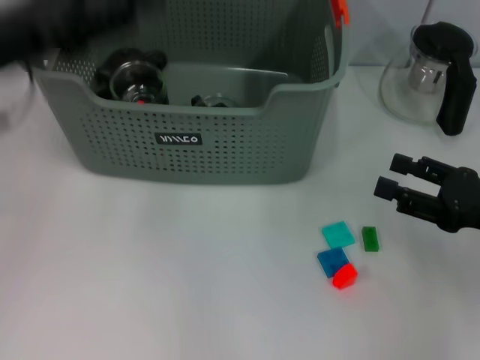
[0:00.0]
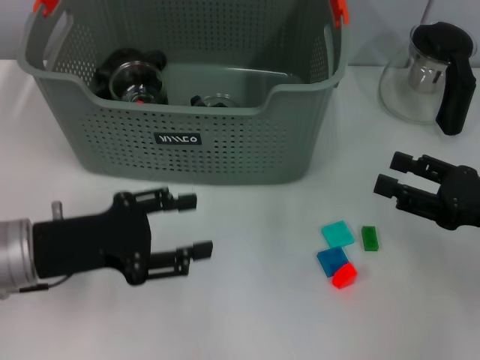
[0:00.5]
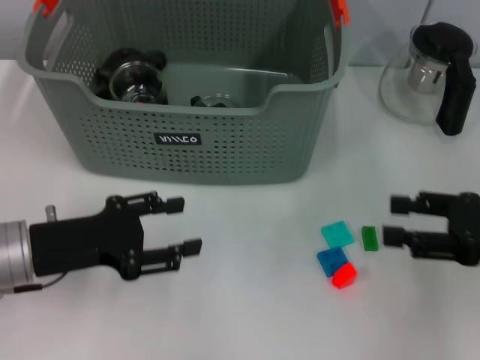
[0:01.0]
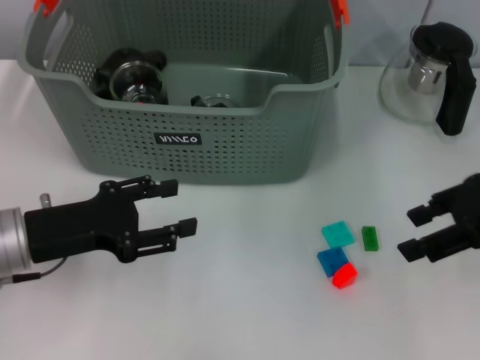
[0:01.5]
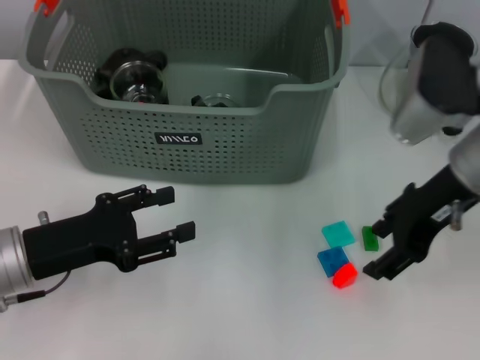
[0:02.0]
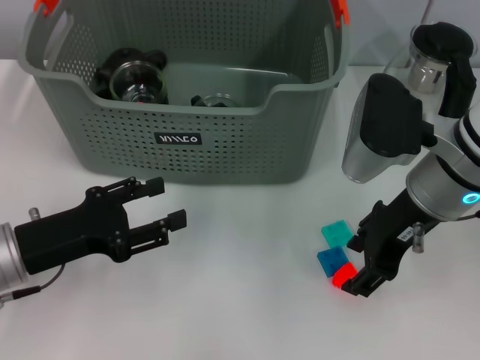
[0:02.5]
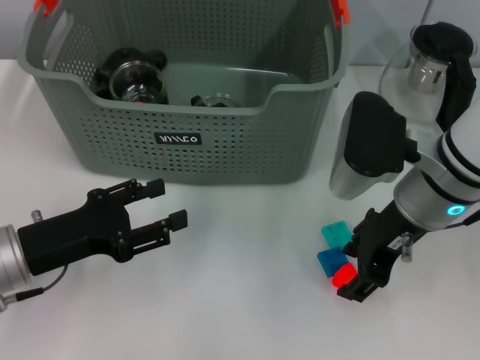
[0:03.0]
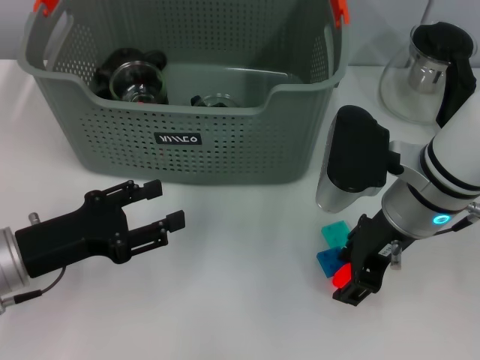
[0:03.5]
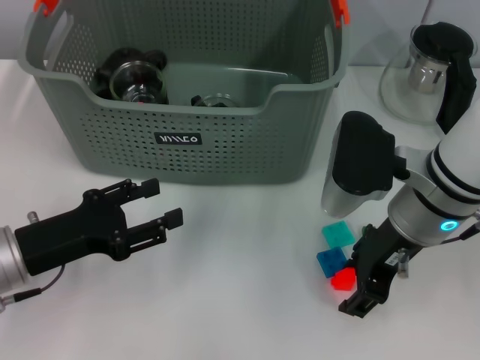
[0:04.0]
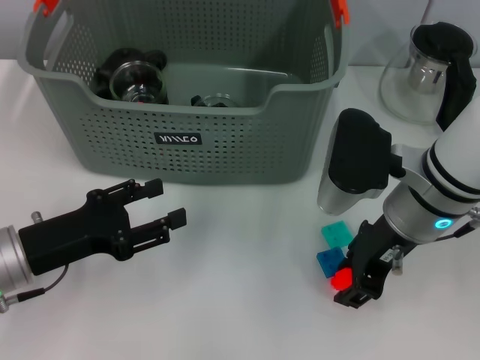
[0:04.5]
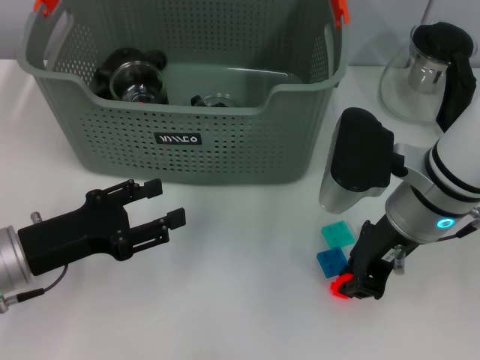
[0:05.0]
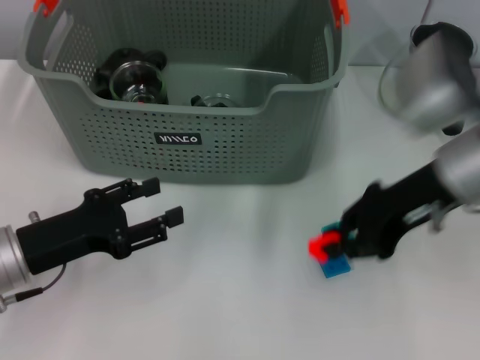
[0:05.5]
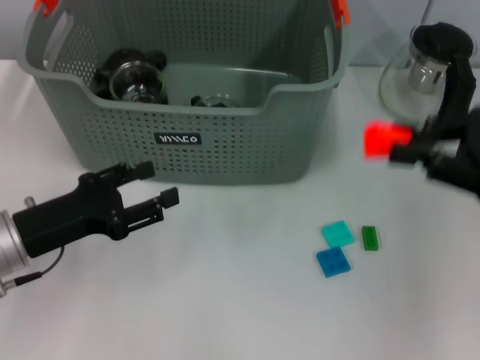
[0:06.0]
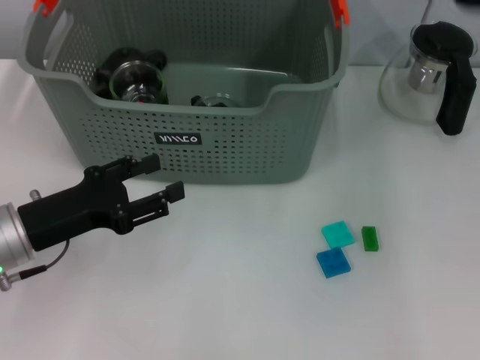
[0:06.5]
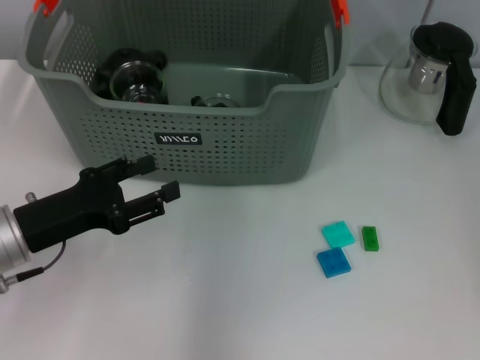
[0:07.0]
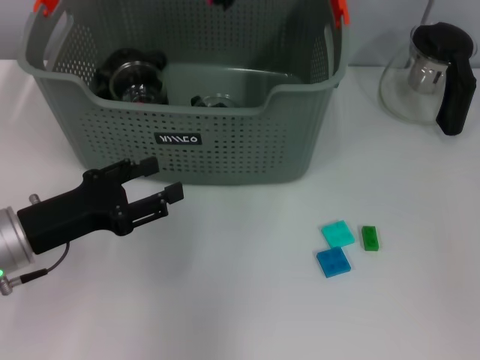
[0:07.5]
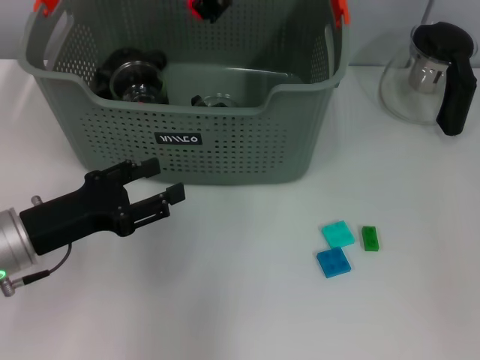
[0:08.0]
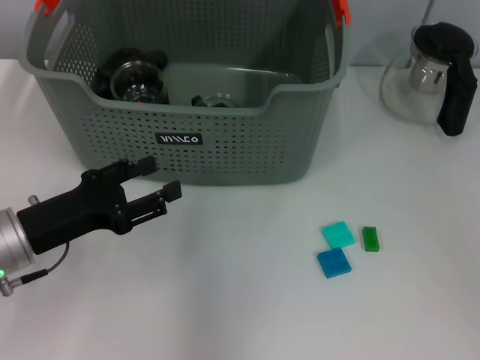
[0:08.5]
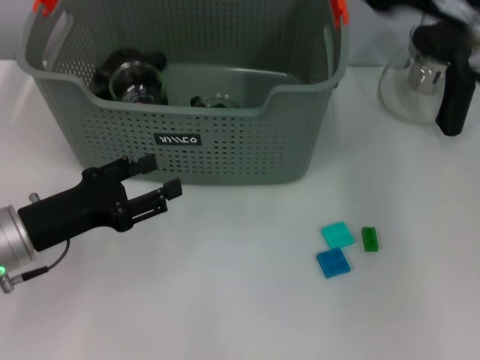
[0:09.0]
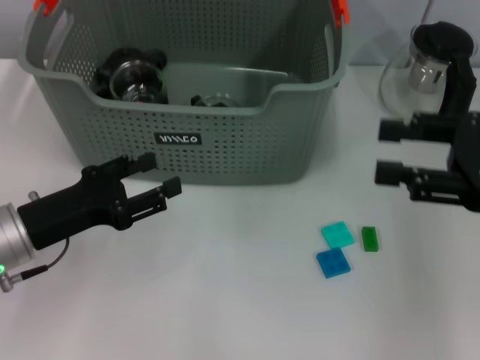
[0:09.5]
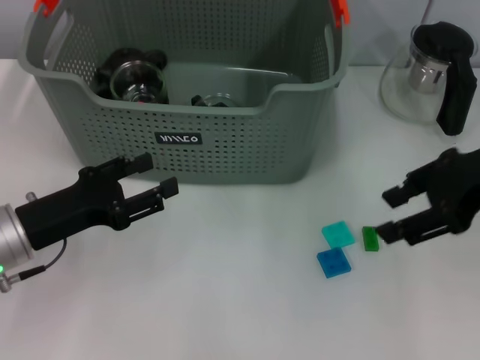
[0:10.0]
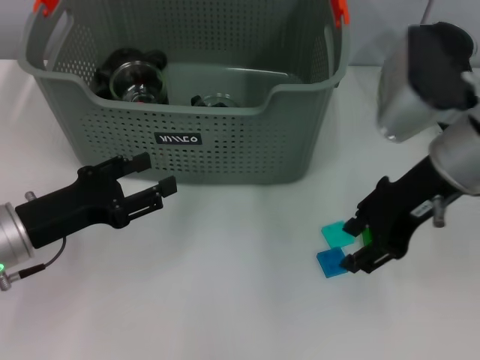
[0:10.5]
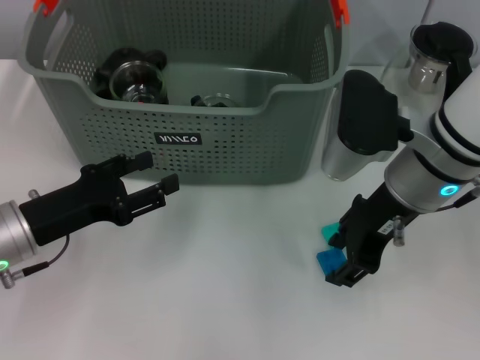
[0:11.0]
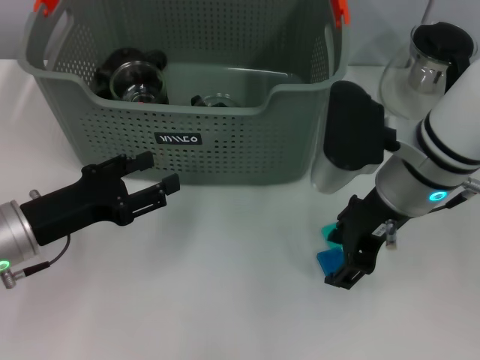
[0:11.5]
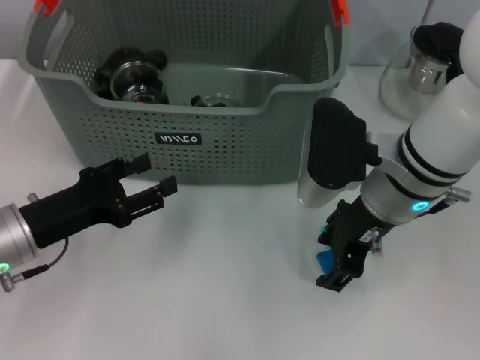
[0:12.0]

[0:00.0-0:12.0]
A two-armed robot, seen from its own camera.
Task of the whole recording: pick up the teacup on the table and place it into the storage bin, pick up the block on the table and place it into the storage bin.
Step, 0.0 to 4.5 s: Grasp the orange block with right gripper.
Step, 5.0 to 8.0 s: Place the orange block in the storage box with right gripper.
0.0 to 2.0 s: The left gripper travels downward and backward by some 15 cm, while the right gripper shifts about 15 cm to the left, upward and forward.
2.0 to 4.0 s: The right gripper shifts by roughly 5 cm.
4.0 to 6.0 s: The right gripper moves to the right, approximately 15 cm, and closes up.
6.0 to 8.0 s: The right gripper heads to the left and forward, covering roughly 30 cm.
8.0 to 10.0 s: The right gripper goes roughly 25 cm to the right and backward, and opens its fingers.
10.0 to 12.0 s: The right gripper goes about 15 cm to the left and downward.

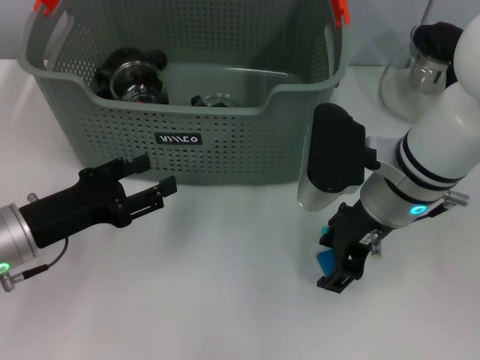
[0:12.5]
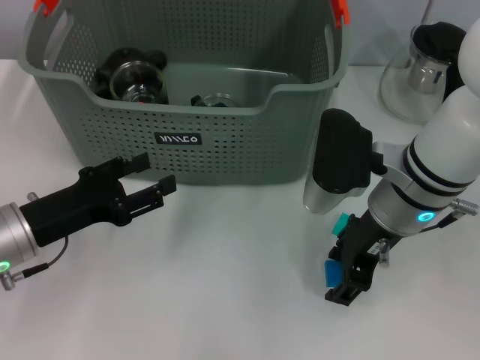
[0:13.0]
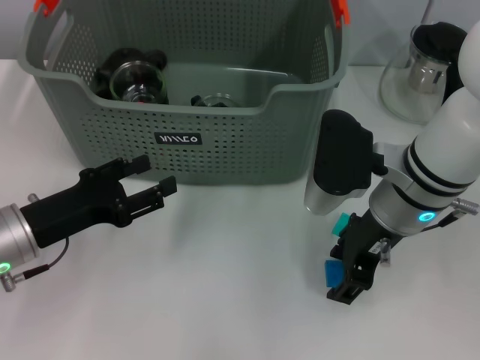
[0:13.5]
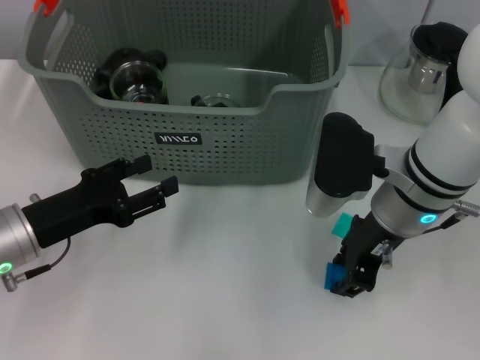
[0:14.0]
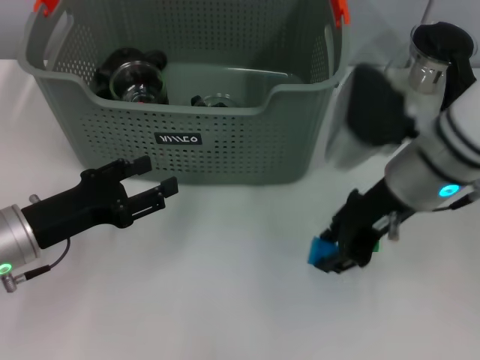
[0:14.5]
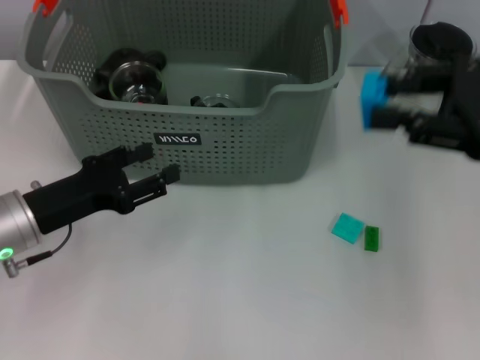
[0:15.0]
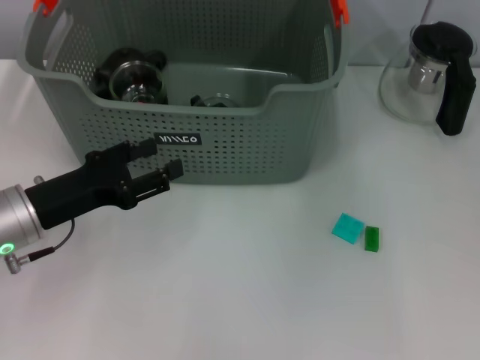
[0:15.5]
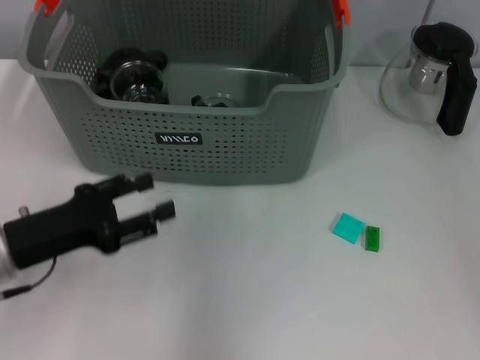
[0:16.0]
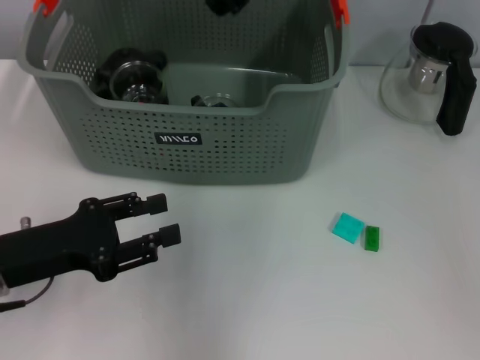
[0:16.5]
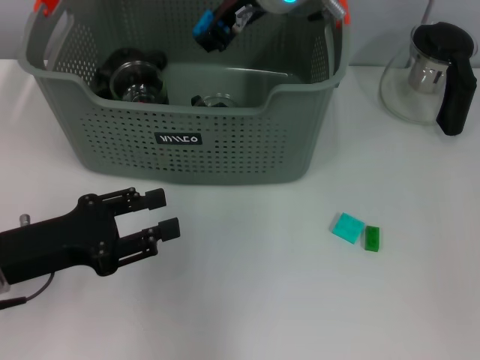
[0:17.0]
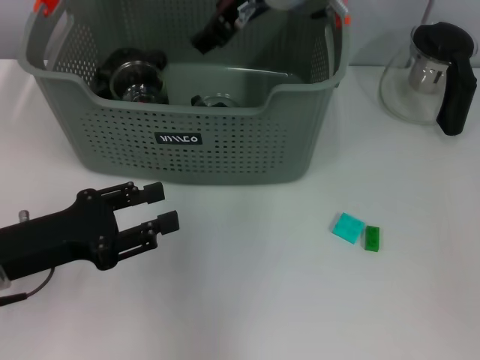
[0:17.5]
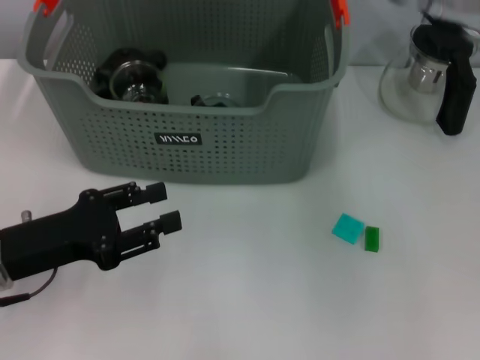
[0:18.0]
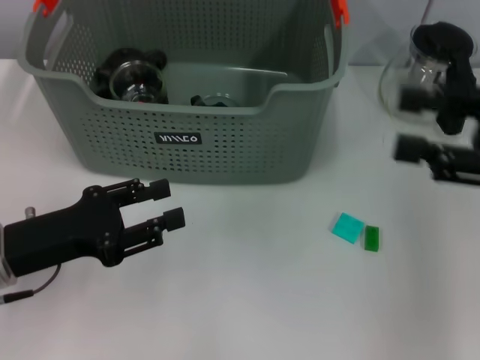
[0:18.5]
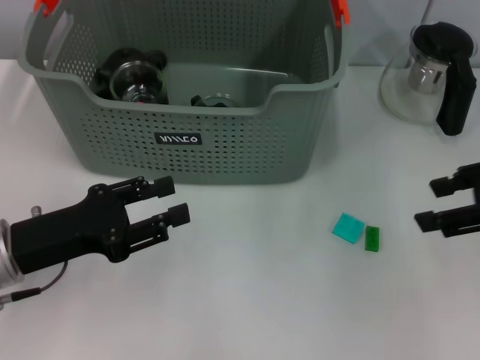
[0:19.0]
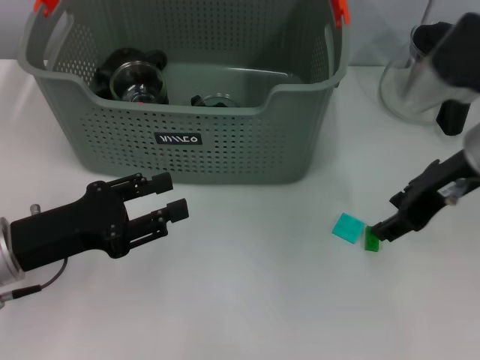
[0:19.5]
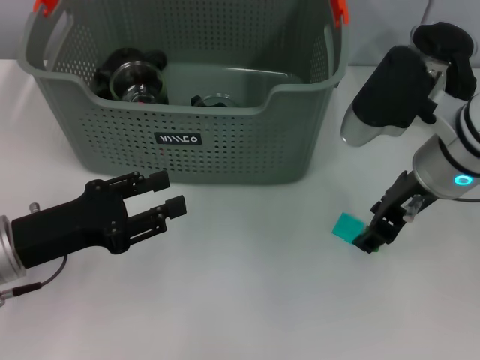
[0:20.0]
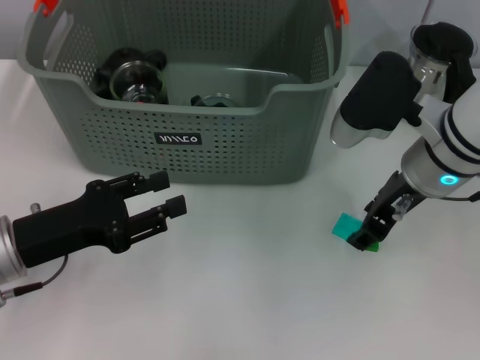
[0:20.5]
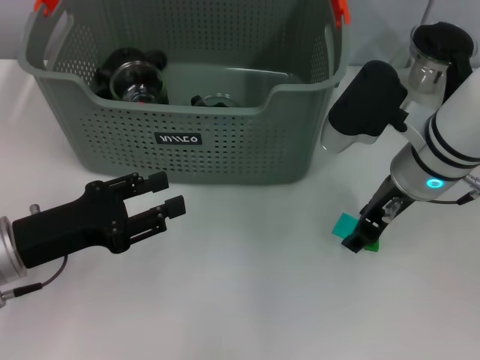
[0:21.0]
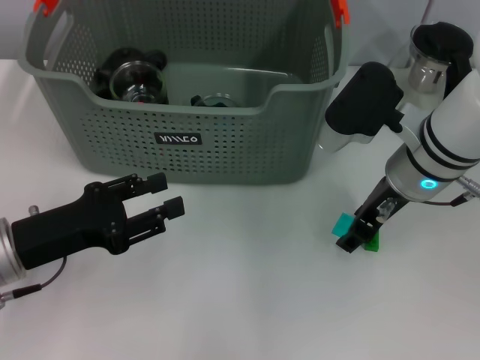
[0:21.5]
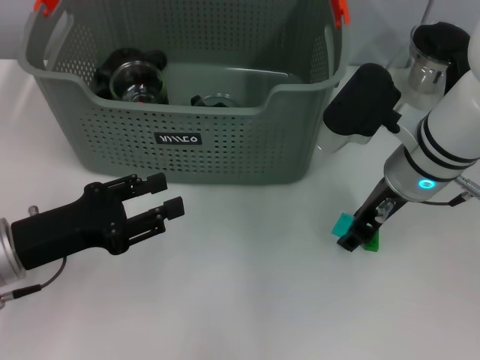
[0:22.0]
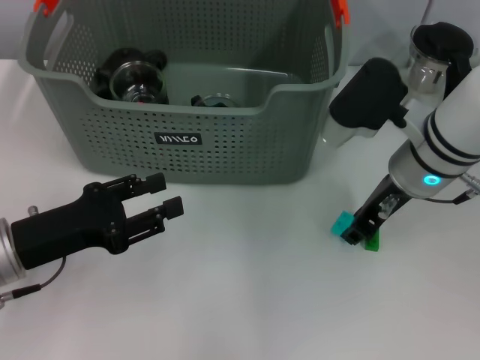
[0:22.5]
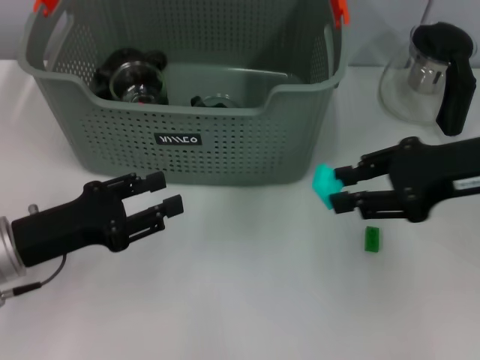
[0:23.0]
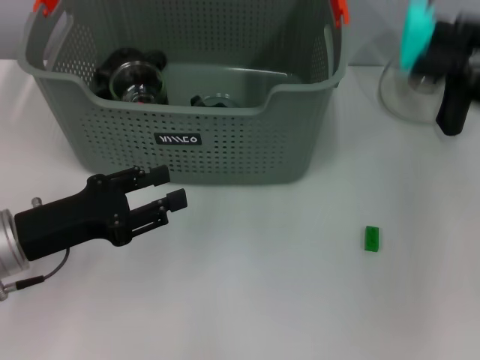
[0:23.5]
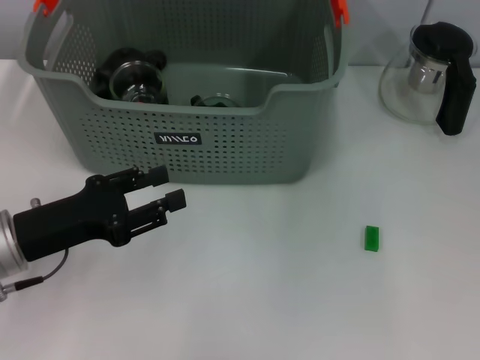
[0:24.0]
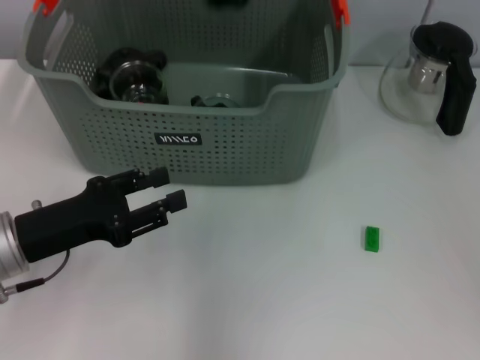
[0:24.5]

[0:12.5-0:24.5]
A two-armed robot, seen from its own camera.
Task of the whole recording: pick up the teacup on the table and place it into the storage bin, pick up the block on the table and place it into the storage bin.
Step, 14.5 to 17.0 s: Place the dark blue block in the storage box with right gripper.
Step, 17.5 to 22.0 s: Grasp the light blue block with right gripper.
12.5 to 14.5 s: There are only small adjustments of the grippers.
14.5 to 16.5 s: The right gripper moves upward, forward and to the left, about 20 cm.
16.5 to 18.5 s: The right gripper goes roughly 30 cm to the right and backward.
18.5 to 20.5 s: The right gripper goes about 15 cm to the left, forward and downward.
20.5 to 22.5 s: The grippers make only small movements.
22.5 to 24.5 s: The right gripper travels upward and to the left by some 20 cm.

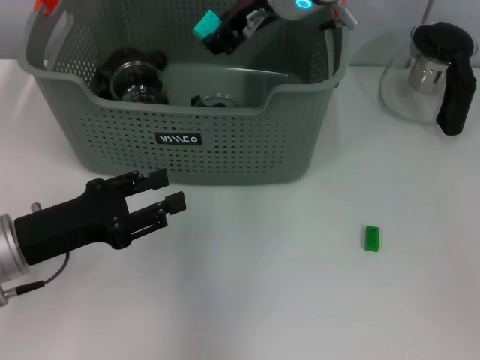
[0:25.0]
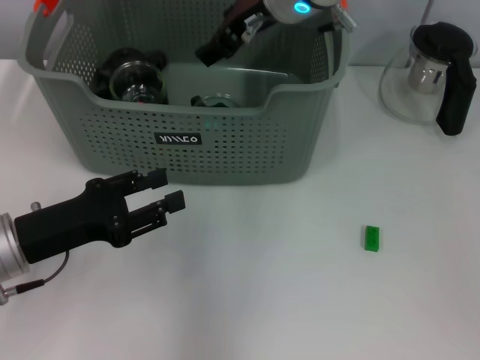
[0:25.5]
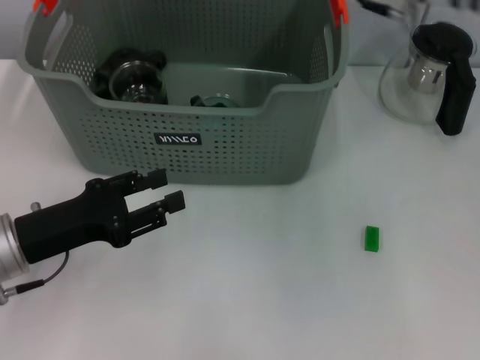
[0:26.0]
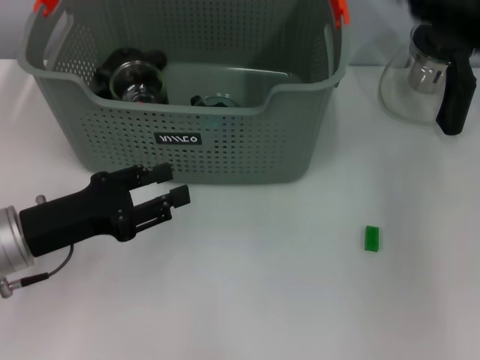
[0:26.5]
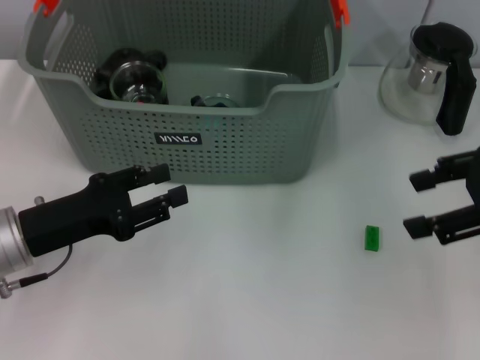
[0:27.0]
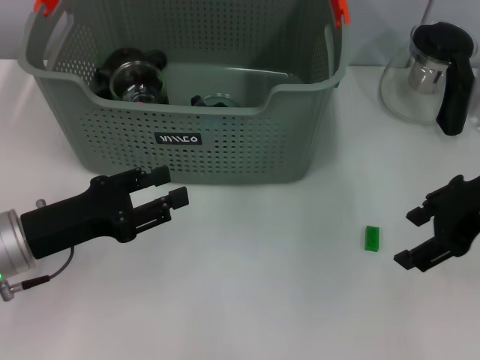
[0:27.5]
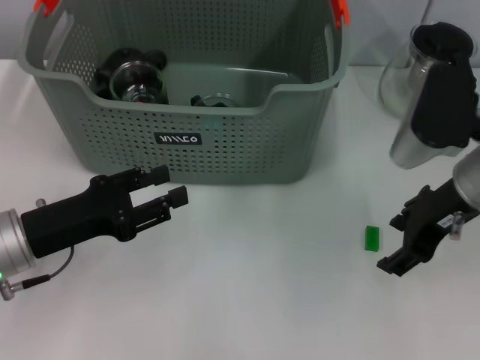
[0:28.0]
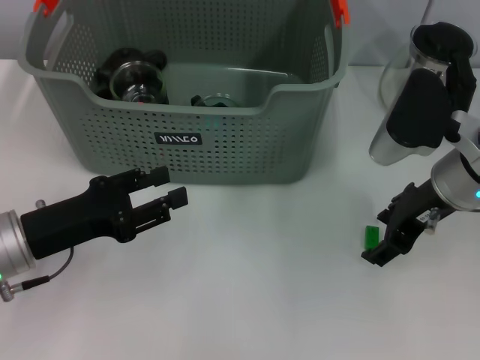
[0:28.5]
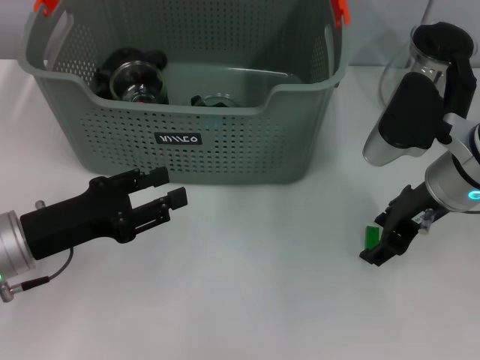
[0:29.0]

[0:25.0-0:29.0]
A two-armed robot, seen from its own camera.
Task of the whole recording: pick up the teacup on the table and place it into the storage bin, pick up the block on the table and place it into the storage bin.
25.0 to 27.0 s: The right gripper heads to the right and backward, covering roughly 30 cm, and opens up.
27.0 to 29.0 s: The right gripper shifts roughly 15 cm downward, to the left and forward.
